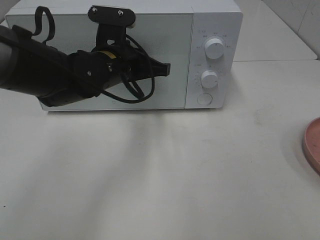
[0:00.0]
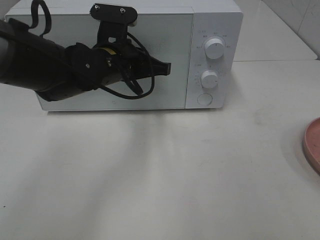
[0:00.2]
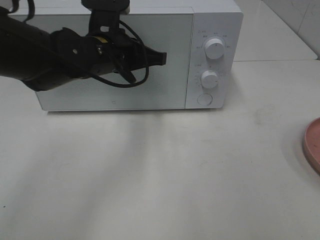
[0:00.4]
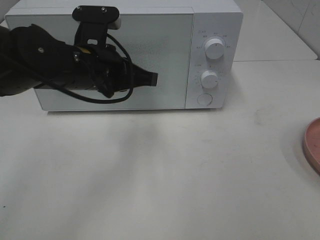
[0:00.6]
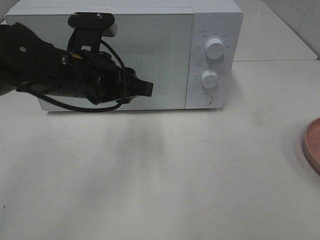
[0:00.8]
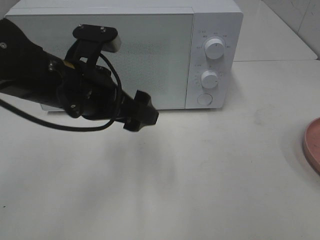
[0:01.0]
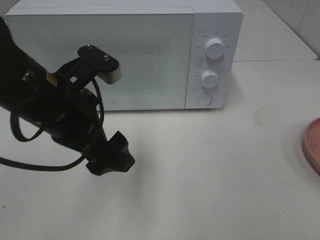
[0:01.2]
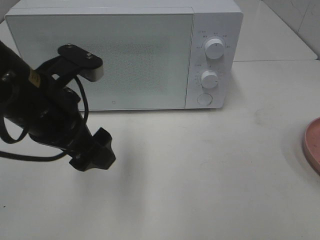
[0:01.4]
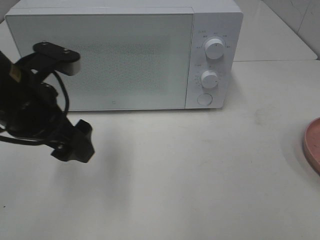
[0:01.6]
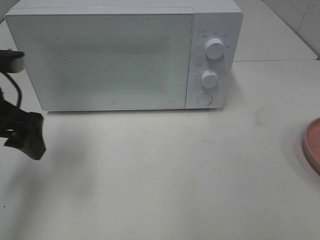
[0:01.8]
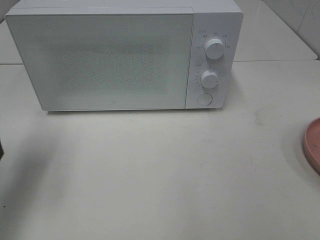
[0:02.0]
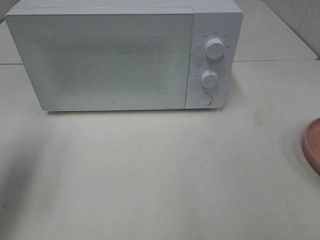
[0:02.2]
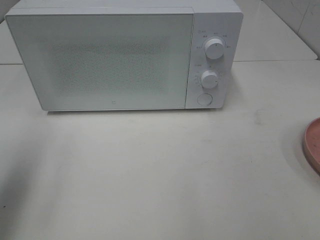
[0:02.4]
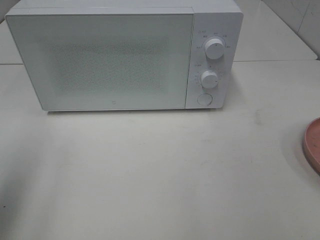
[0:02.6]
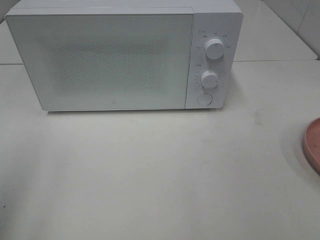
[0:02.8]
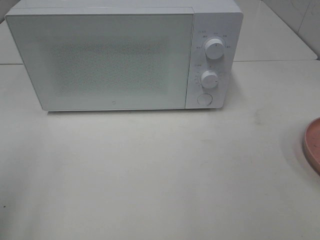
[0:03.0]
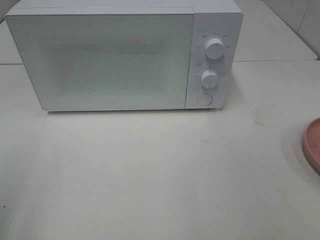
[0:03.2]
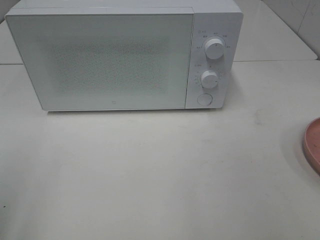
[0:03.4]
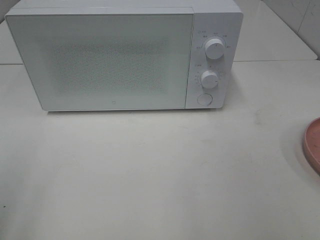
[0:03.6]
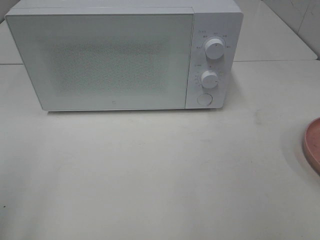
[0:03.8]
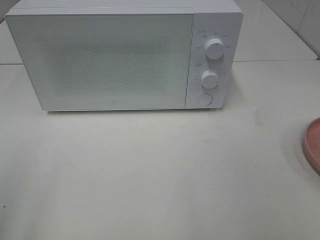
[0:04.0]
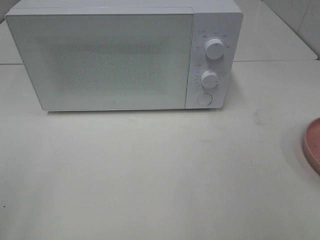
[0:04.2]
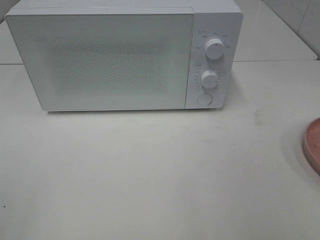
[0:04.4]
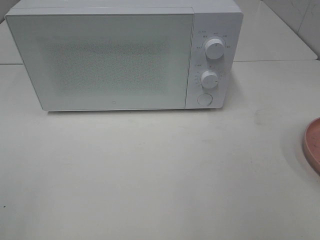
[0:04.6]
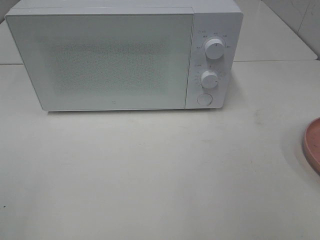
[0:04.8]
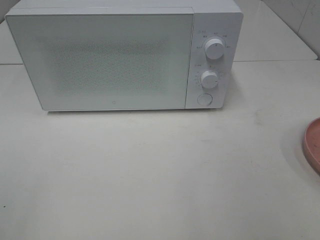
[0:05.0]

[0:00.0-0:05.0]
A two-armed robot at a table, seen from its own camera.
Task of the whole recording: Heat the burger.
0:00.0 to 0:01.6: The left gripper is displaced to the left and backward by approximately 15 cm, and opens its fingers.
0:01.6 to 0:03.4: The left gripper goes approximately 20 cm backward and to the left.

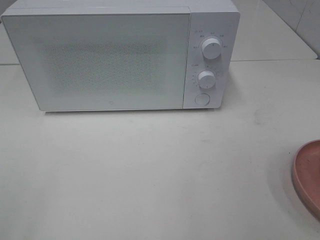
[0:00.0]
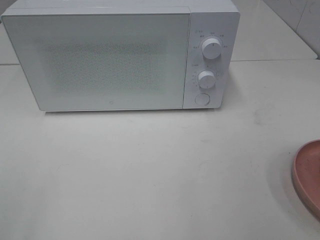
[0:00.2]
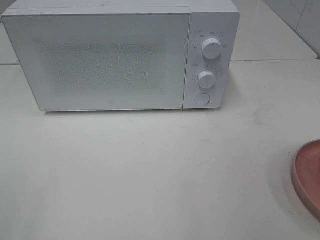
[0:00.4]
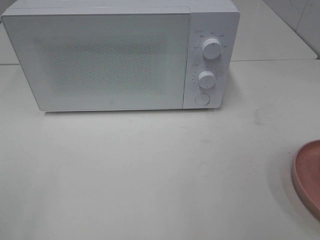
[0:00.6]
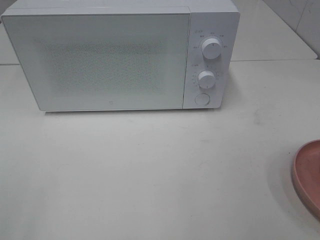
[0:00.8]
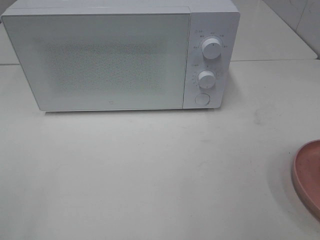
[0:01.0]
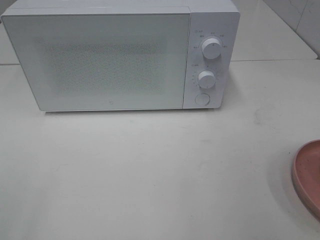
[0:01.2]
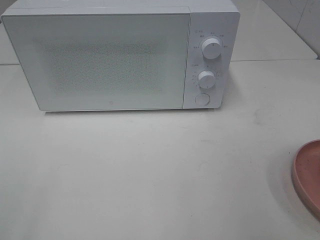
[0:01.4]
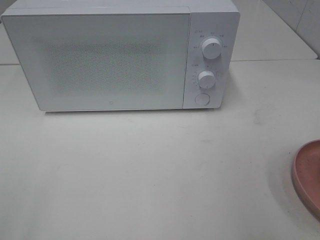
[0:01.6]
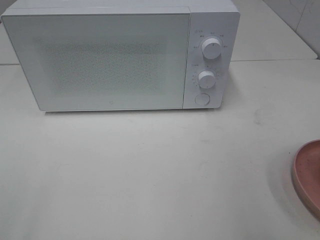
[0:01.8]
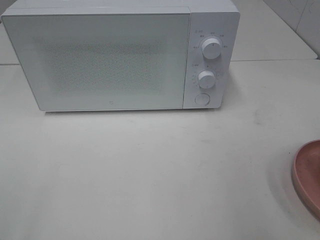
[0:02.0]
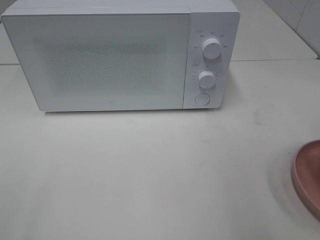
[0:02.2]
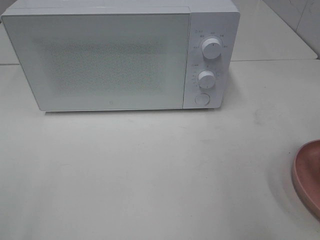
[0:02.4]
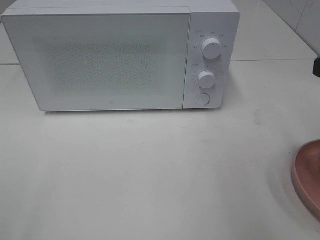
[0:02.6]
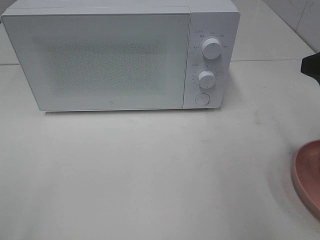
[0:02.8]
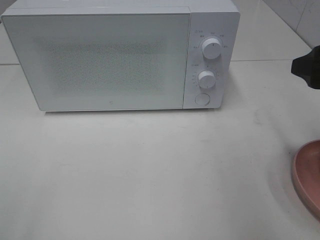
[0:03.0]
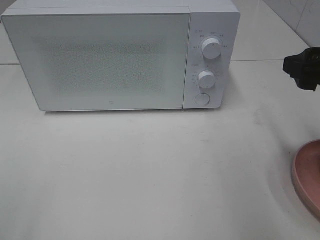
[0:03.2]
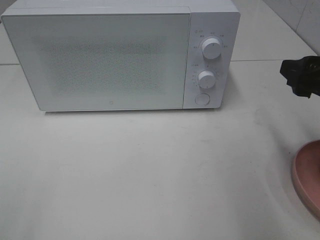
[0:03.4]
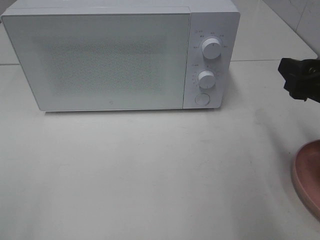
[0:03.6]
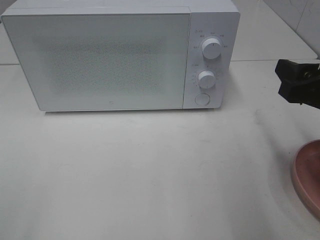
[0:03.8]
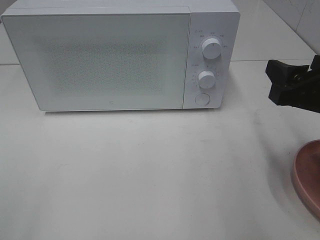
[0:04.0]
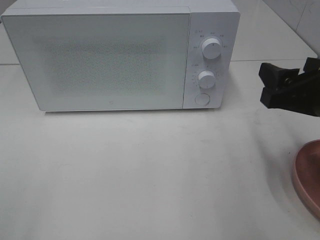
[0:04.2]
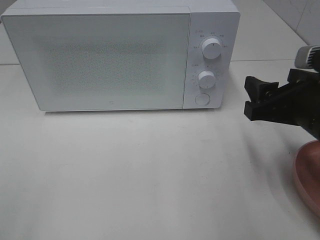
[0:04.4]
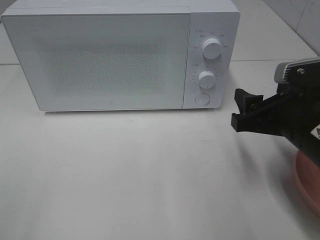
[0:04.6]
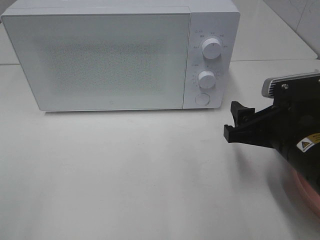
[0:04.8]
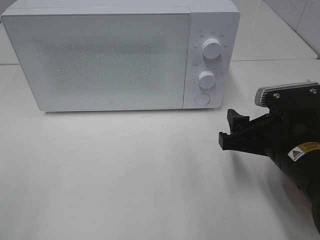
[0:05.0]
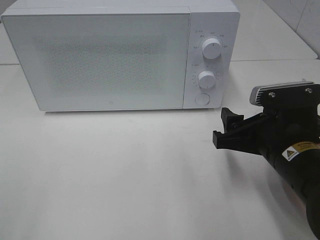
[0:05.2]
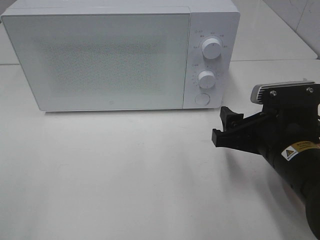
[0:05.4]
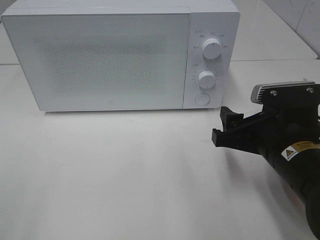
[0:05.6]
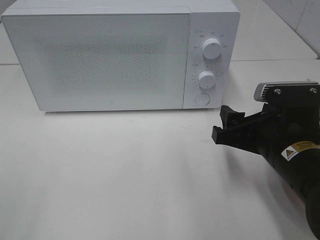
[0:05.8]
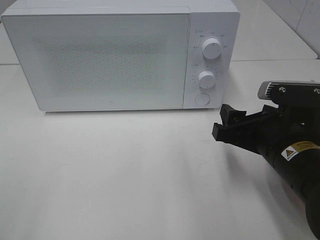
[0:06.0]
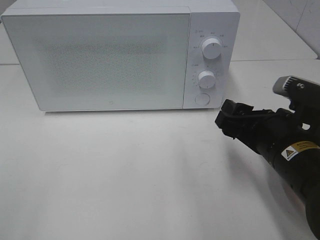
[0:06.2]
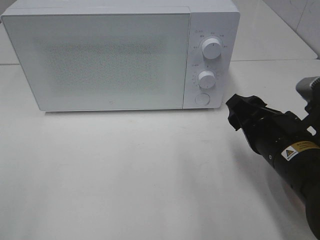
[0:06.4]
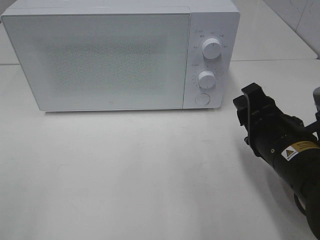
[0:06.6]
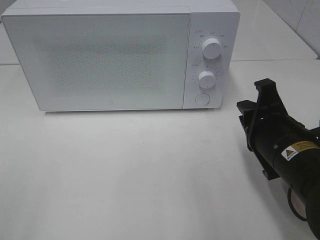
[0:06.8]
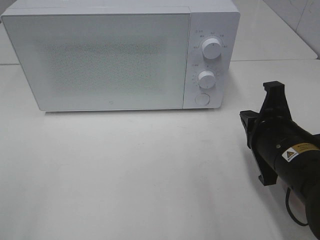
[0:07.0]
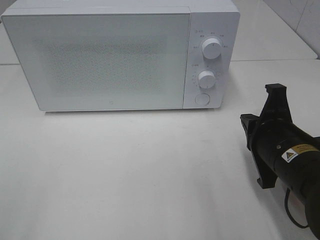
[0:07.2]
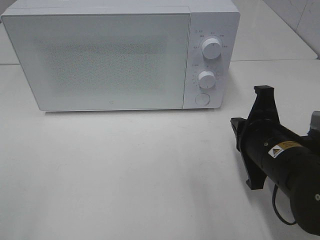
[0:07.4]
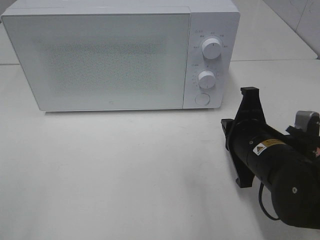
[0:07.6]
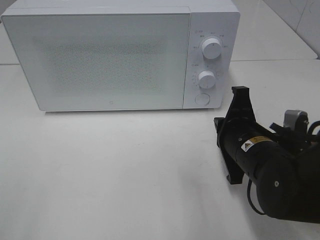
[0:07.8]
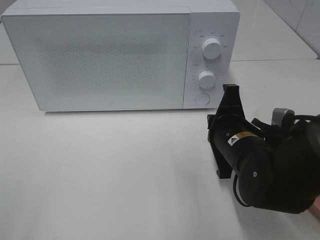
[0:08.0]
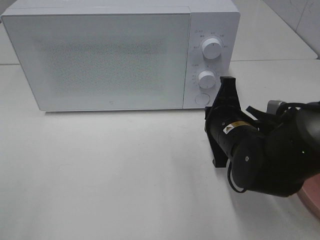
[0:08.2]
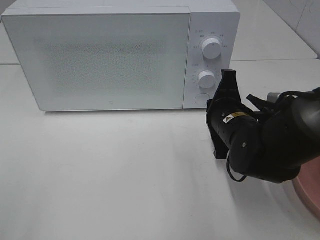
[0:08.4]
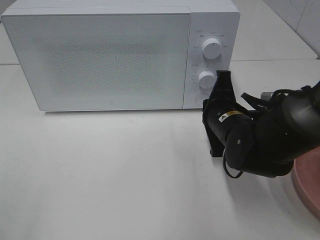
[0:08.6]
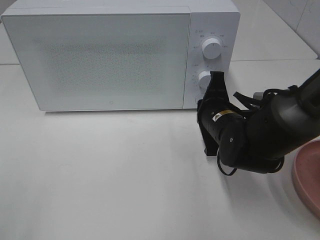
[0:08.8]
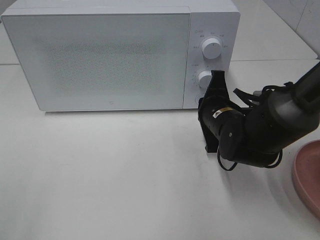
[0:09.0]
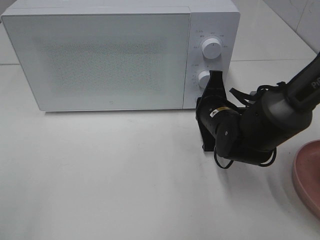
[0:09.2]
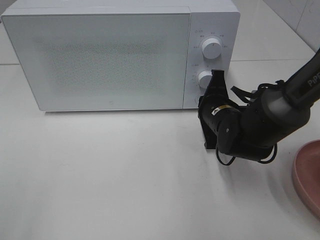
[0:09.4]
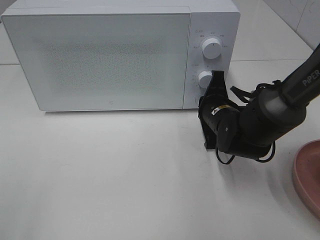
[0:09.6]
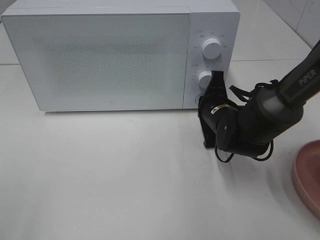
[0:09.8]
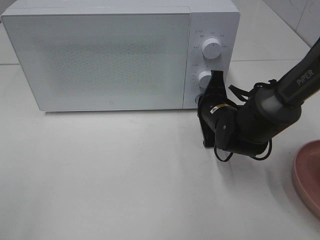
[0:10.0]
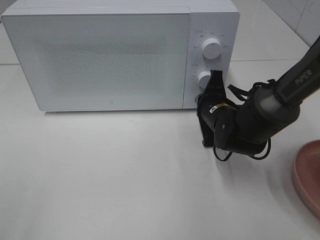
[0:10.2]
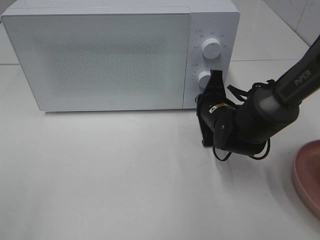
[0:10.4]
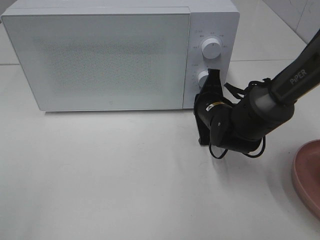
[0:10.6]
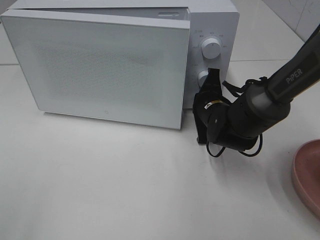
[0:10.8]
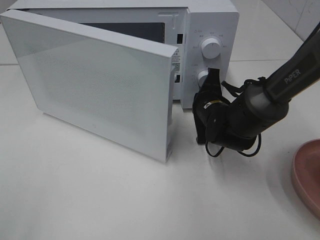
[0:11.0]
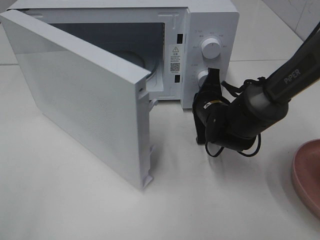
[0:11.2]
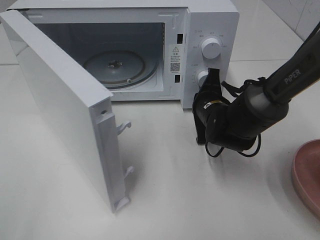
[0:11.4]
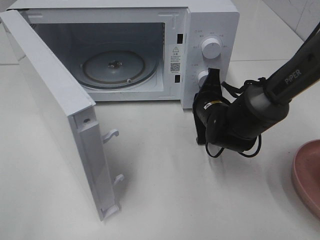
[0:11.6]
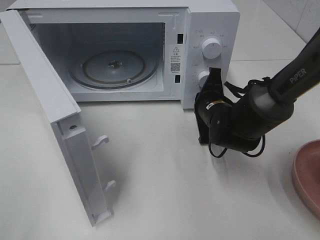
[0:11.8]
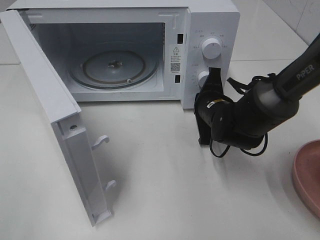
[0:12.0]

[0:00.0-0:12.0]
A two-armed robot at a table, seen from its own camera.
Task of the whole recording: Heat the burger.
0:01.6 to 0:03.0: The right gripper is displaced forward by roughly 15 cm.
0:03.0 to 0:04.4: The right gripper goes approximately 10 cm downward and to the left.
0:04.4 to 0:06.0: The right gripper shifts by about 5 cm.
0:06.0 to 0:07.6: The right gripper closes up.
0:07.6 to 0:09.0: The right gripper heads forward, covering roughly 10 cm.
0:09.0 to 0:10.4: The grippers make only small movements.

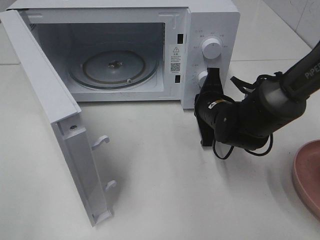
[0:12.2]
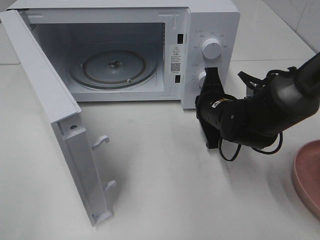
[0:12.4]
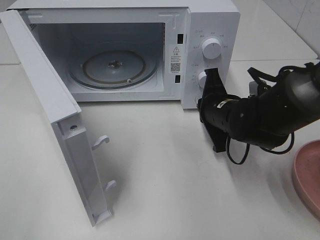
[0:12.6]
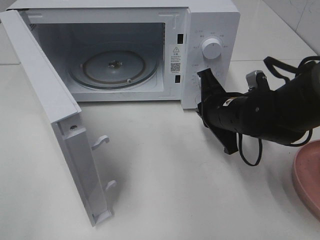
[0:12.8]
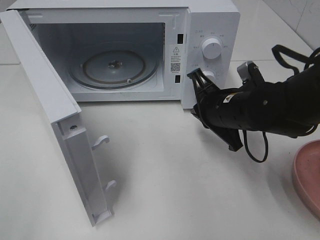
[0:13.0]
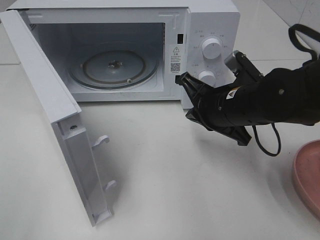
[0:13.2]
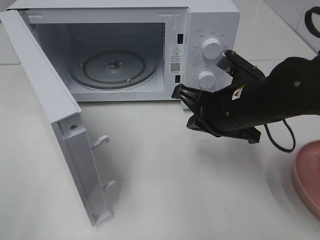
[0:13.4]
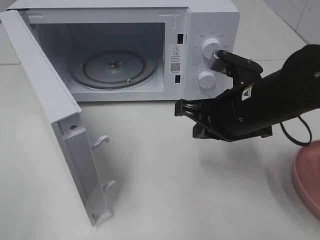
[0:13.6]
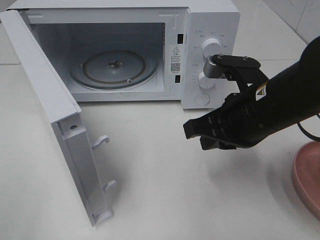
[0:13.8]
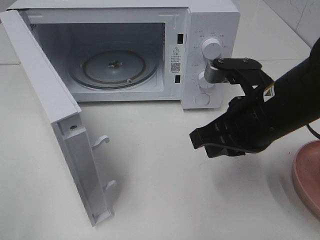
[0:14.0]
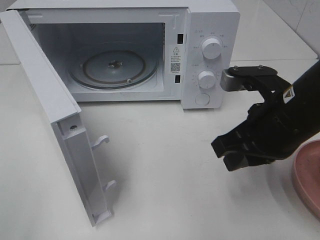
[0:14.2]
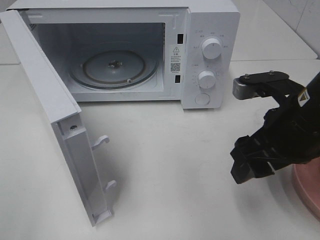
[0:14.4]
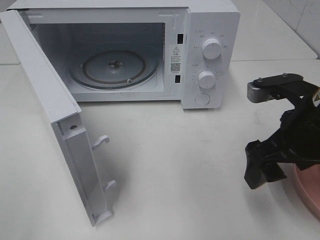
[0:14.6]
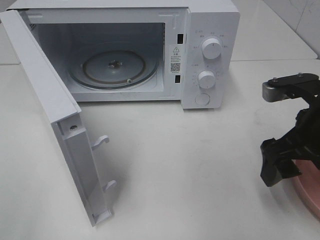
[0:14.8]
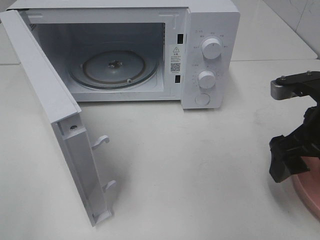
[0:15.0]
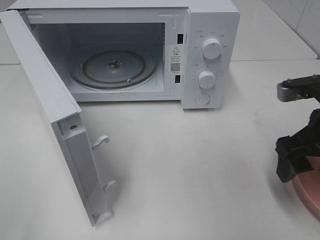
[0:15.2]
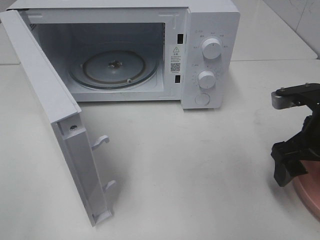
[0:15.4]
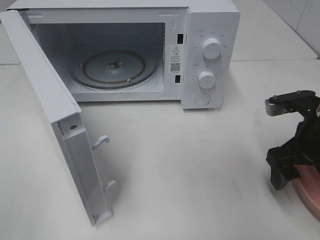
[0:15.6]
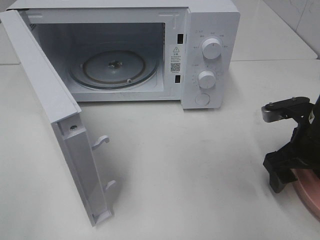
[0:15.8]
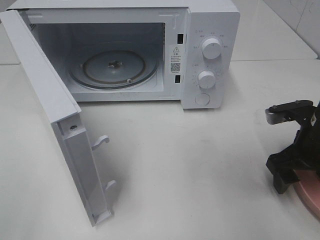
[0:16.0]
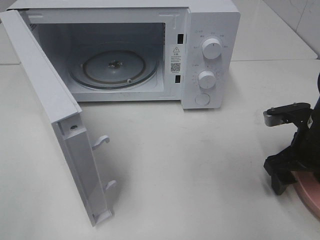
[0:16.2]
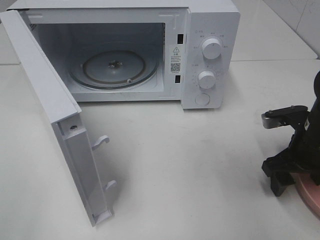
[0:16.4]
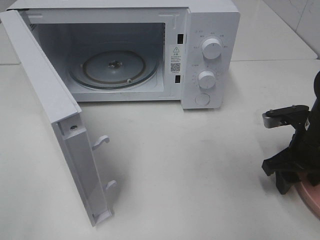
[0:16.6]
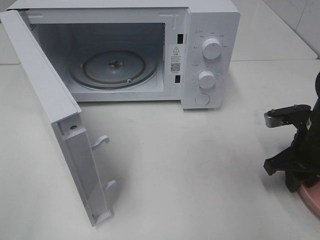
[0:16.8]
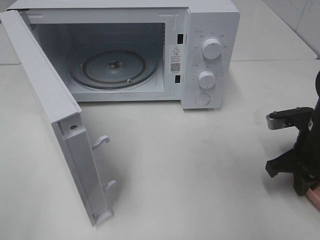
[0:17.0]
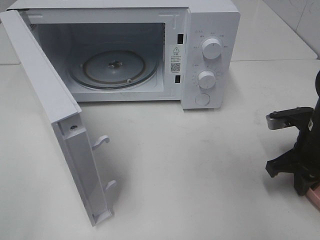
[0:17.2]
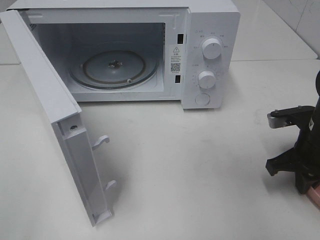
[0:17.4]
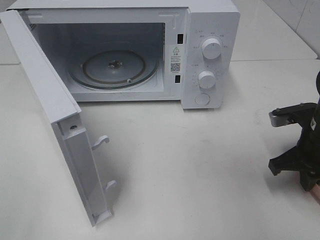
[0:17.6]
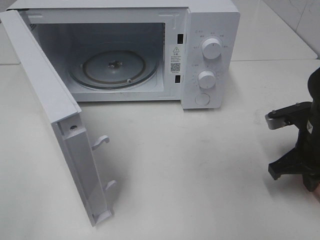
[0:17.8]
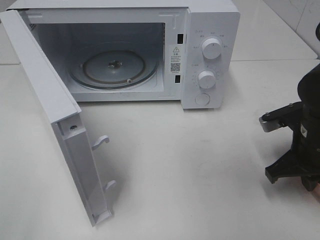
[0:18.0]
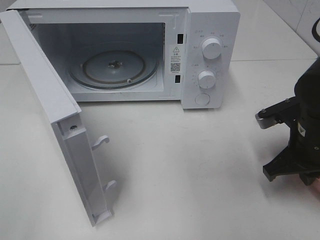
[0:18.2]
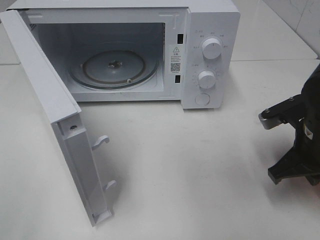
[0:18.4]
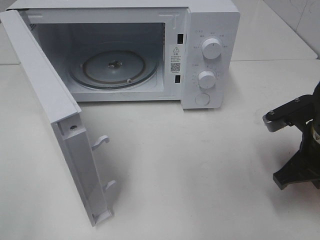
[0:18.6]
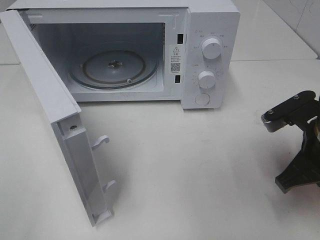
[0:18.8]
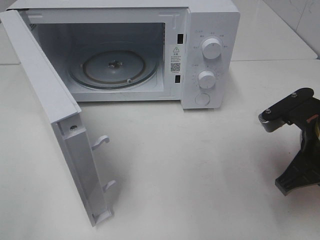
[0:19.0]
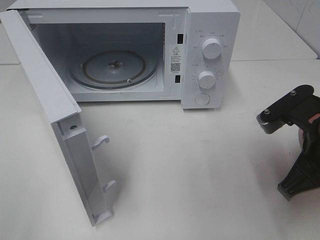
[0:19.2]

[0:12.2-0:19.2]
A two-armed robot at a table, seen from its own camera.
Task of the whole recording: Heat the burger.
Step, 0:12.4 to 0:17.8: Right hand: grab the plate with the hamburger.
0:12.2 to 0:13.6: The right gripper travels upward and backward by about 15 cm.
0:13.6 to 0:15.0: The right gripper goes some 10 cm to the right, and opens.
0:15.0 to 0:16.4: The right gripper goes some 10 cm downward.
0:16.4 to 0:17.8: The right gripper closes.
0:17.8 to 0:19.2: The right gripper moves backward and upward, approximately 10 cm.
